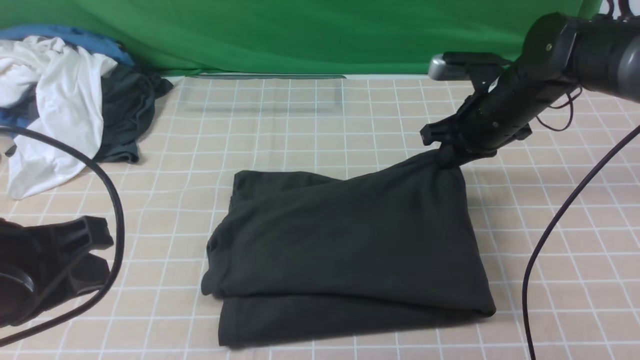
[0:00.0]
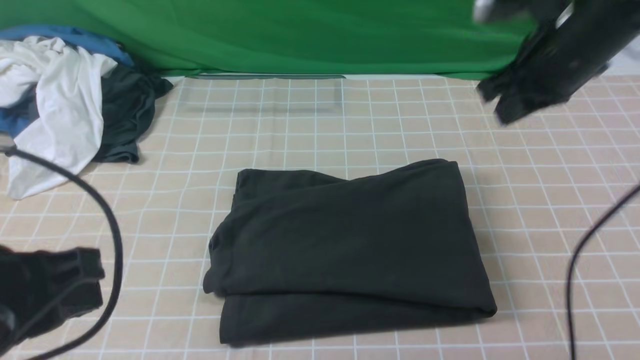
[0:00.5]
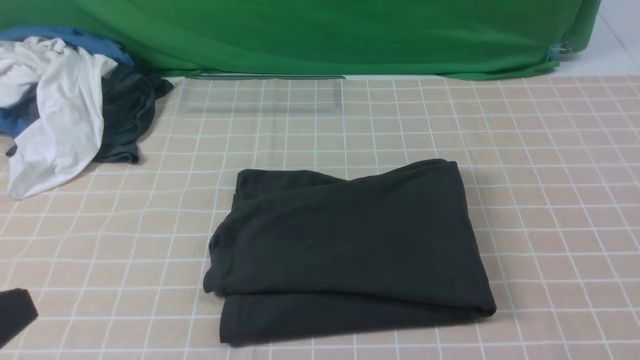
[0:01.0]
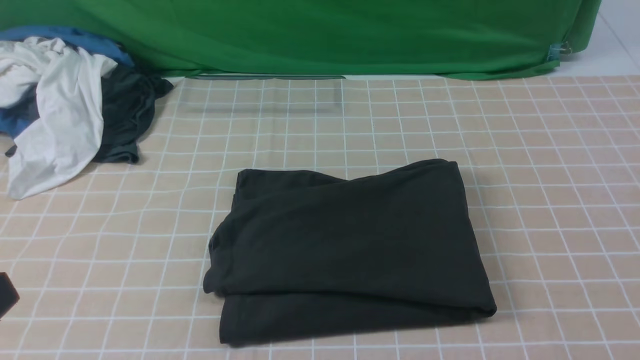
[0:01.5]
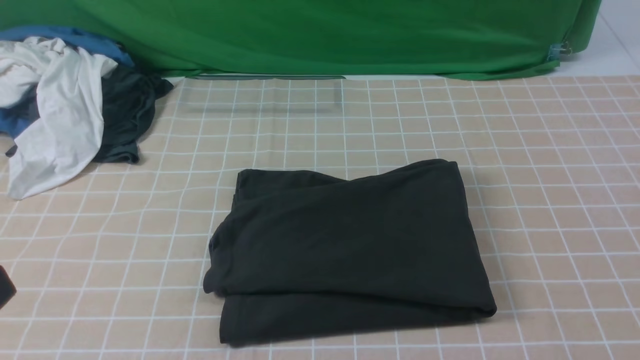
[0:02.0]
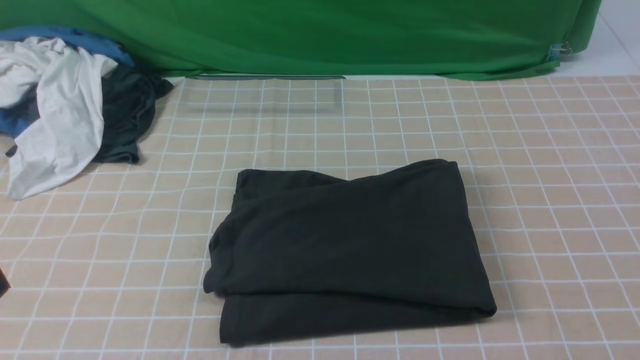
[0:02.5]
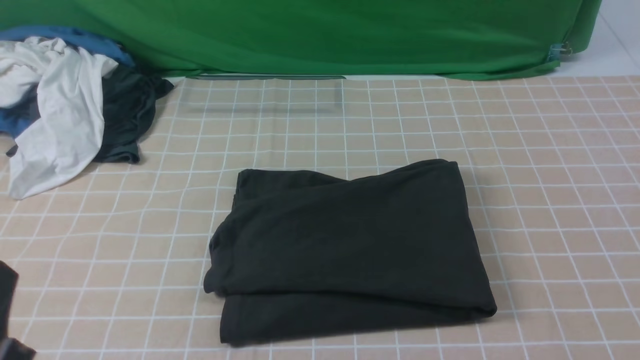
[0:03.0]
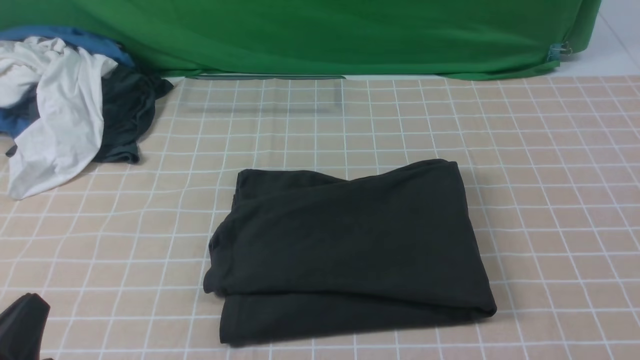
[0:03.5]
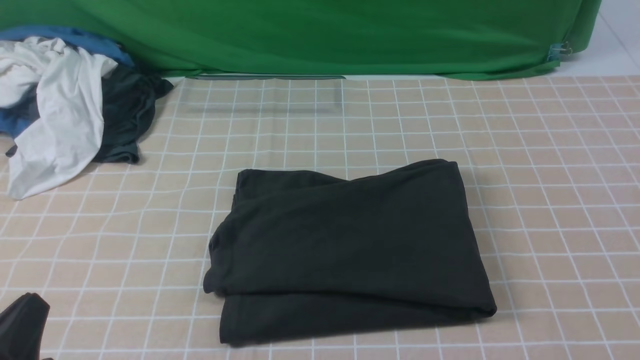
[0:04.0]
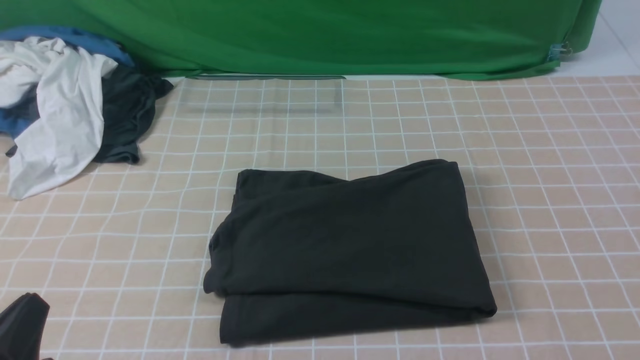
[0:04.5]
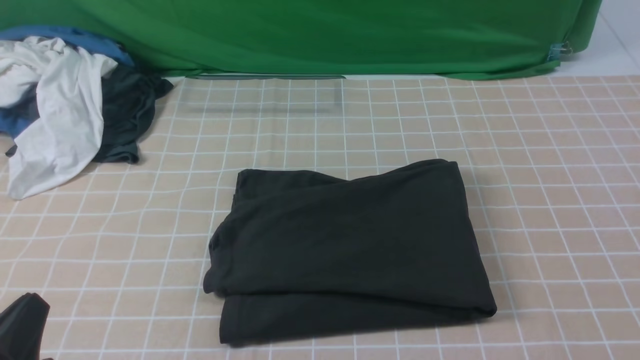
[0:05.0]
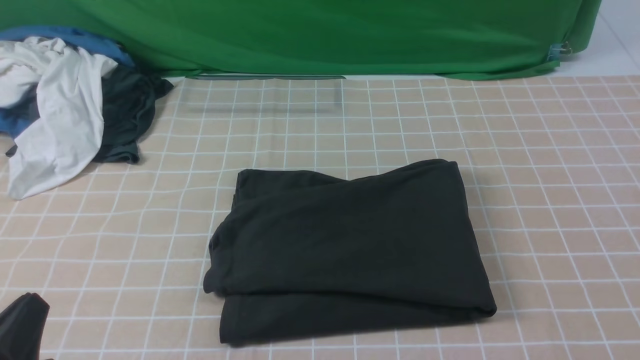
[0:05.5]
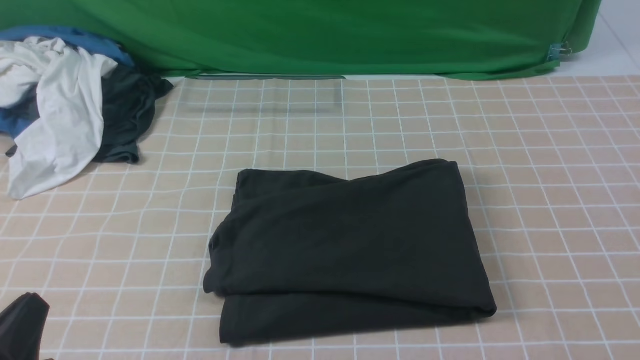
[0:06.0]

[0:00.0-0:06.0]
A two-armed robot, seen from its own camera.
0:00.0 to 0:02.0: The right gripper heads backward and upward, covering some 40 cm, while the left gripper shifts about 10 cm backward.
0:02.0 to 0:04.0: The left gripper heads downward, covering approximately 15 cm.

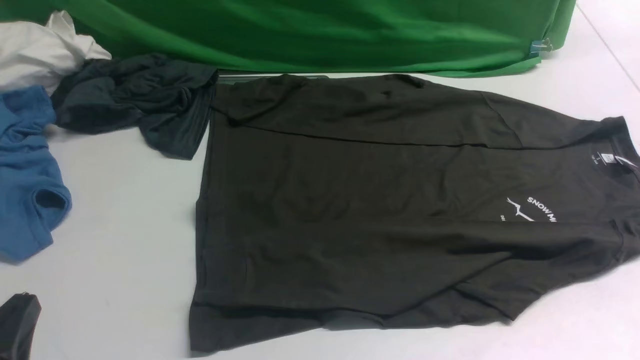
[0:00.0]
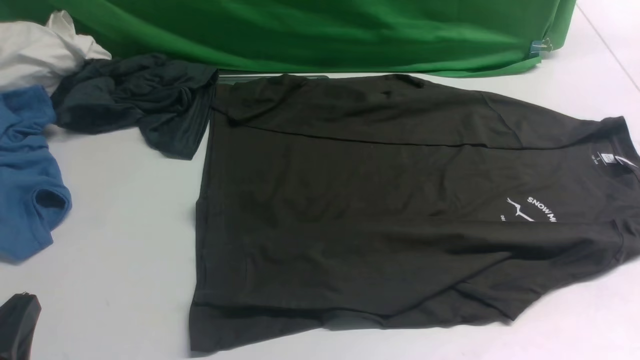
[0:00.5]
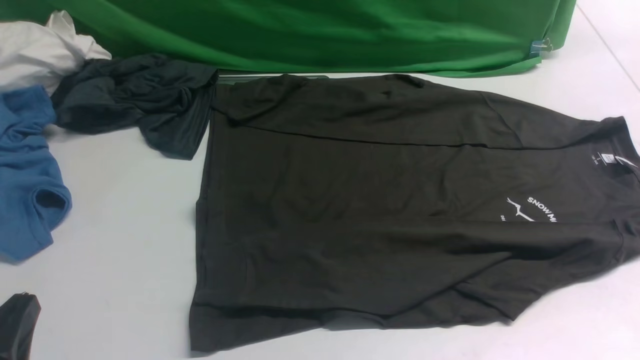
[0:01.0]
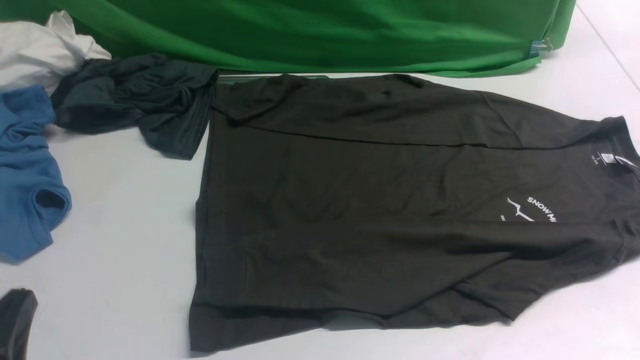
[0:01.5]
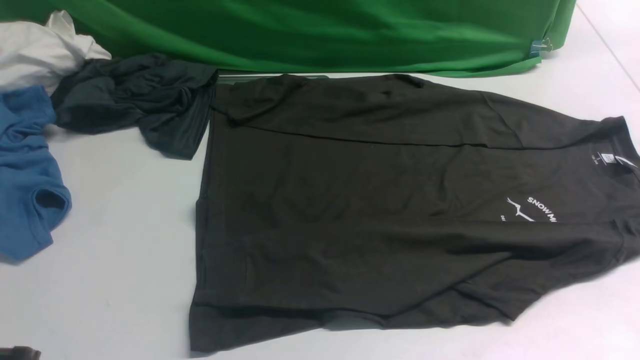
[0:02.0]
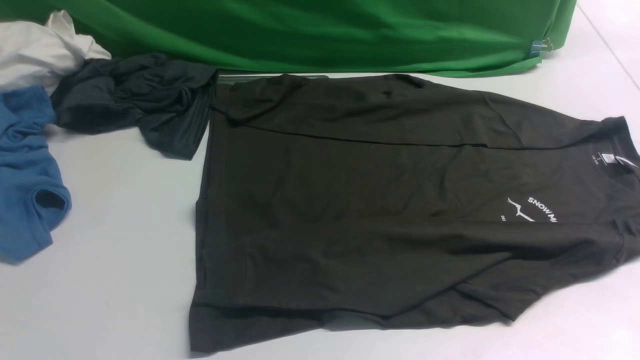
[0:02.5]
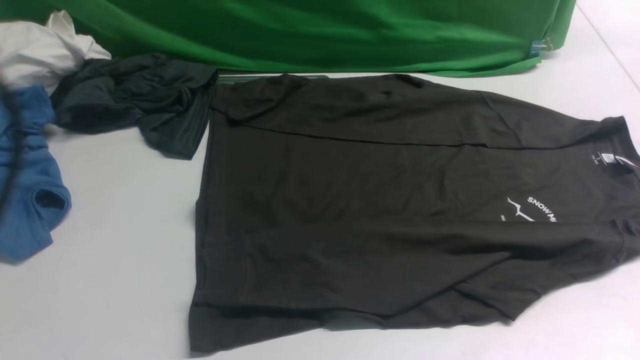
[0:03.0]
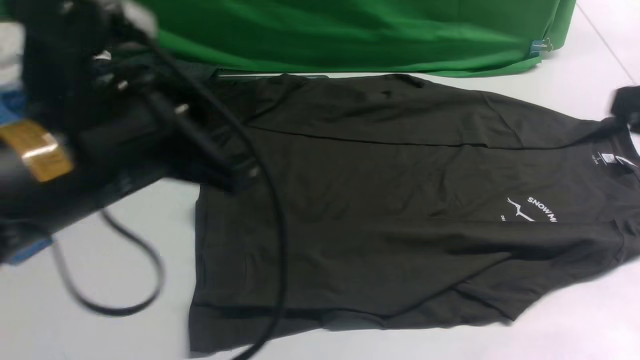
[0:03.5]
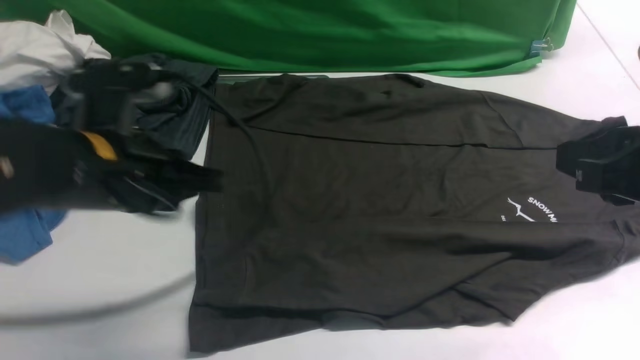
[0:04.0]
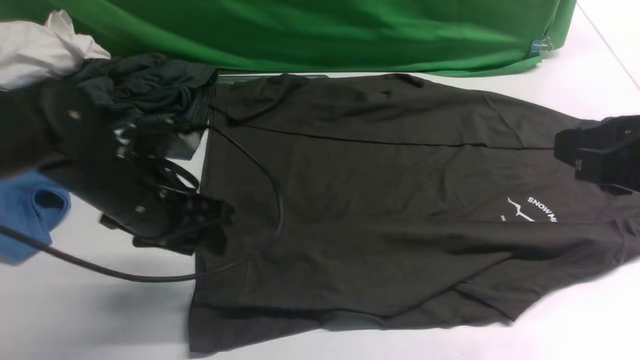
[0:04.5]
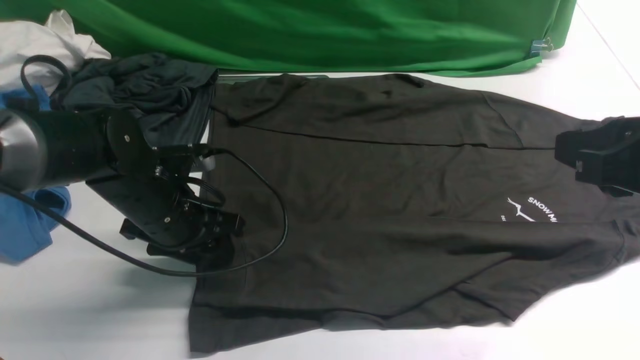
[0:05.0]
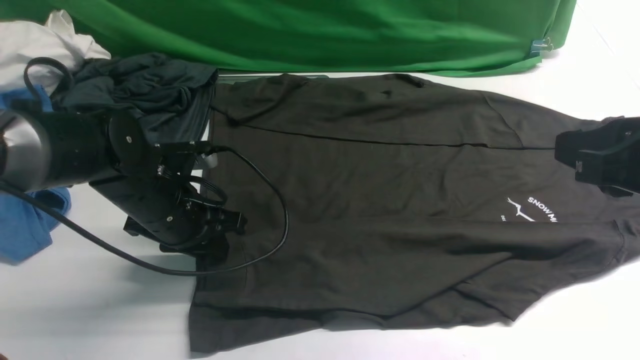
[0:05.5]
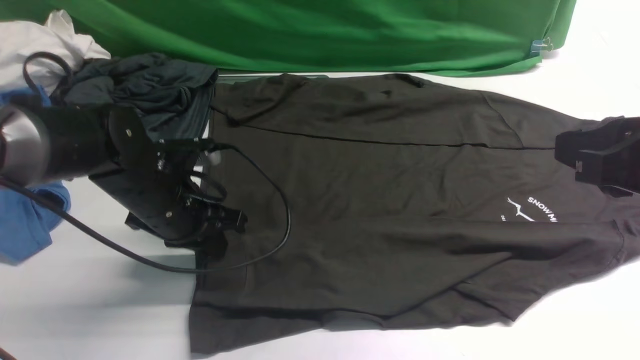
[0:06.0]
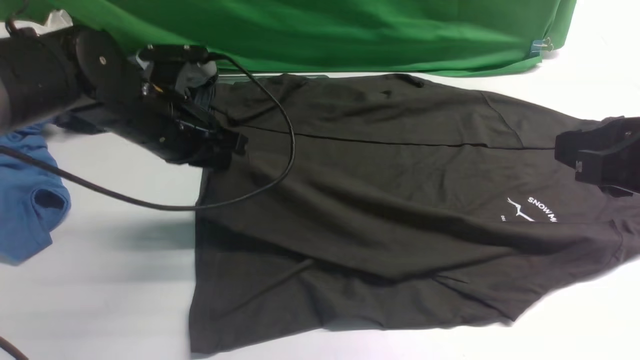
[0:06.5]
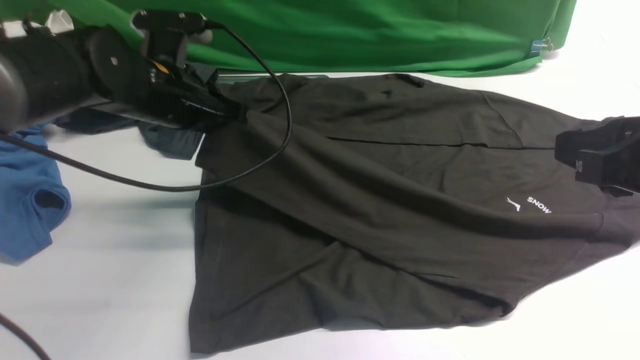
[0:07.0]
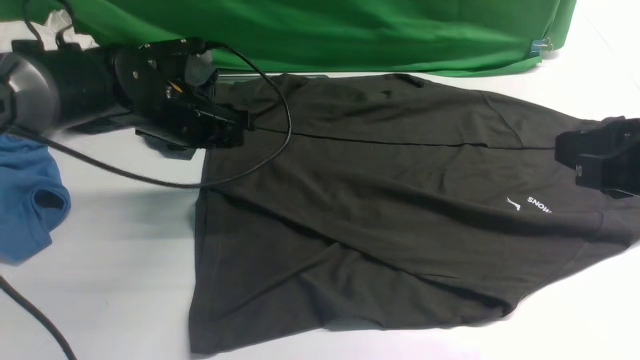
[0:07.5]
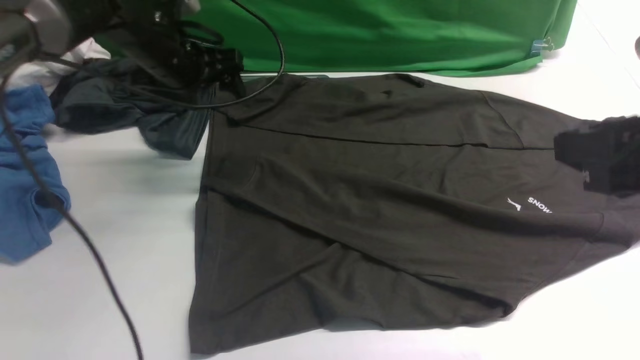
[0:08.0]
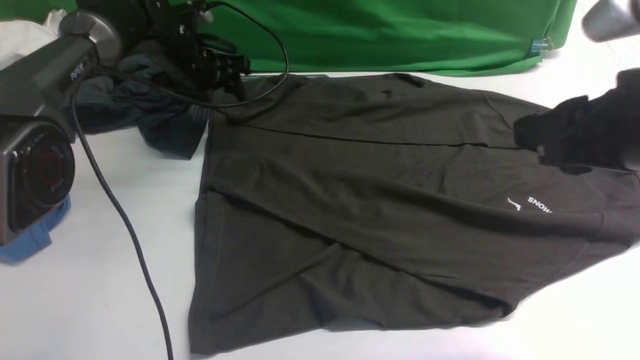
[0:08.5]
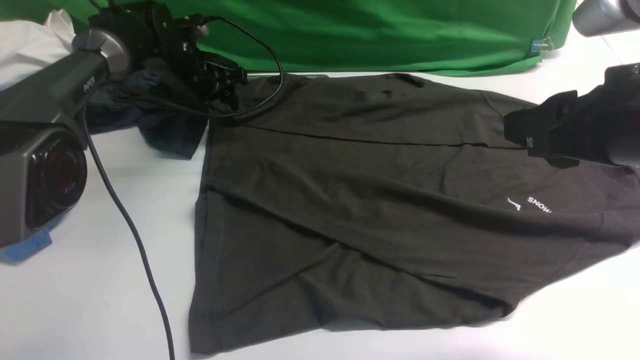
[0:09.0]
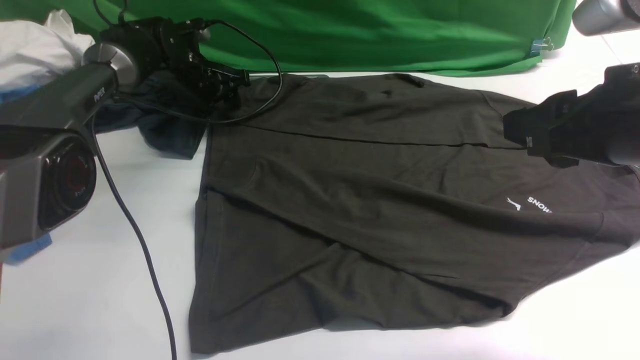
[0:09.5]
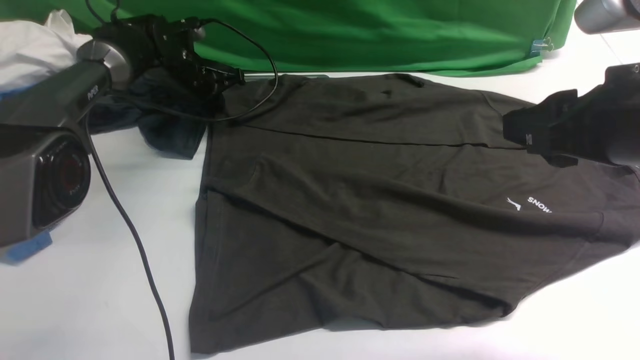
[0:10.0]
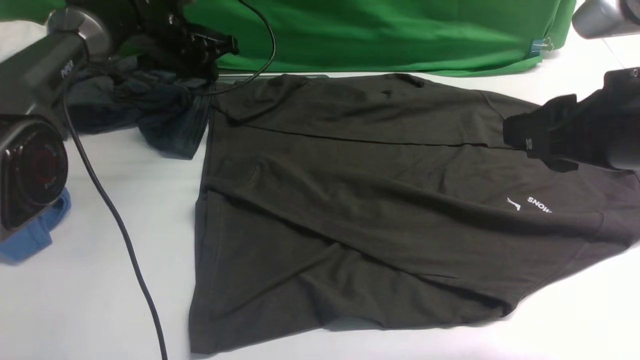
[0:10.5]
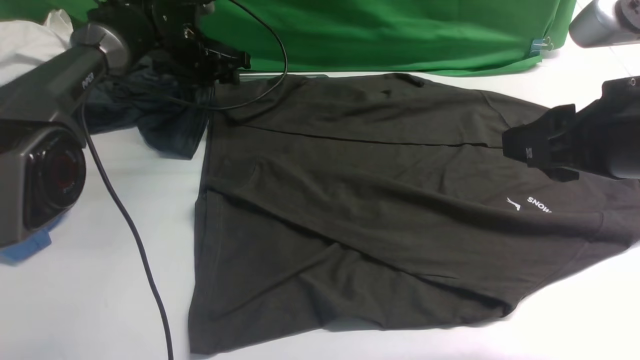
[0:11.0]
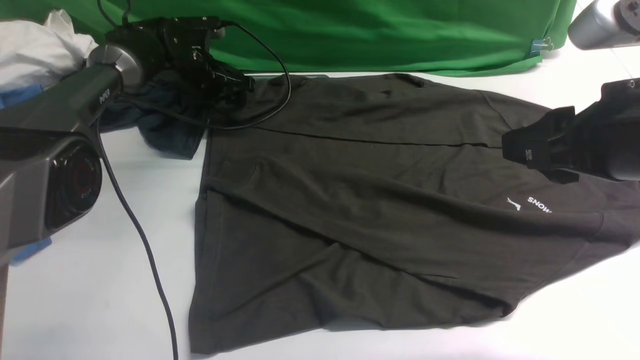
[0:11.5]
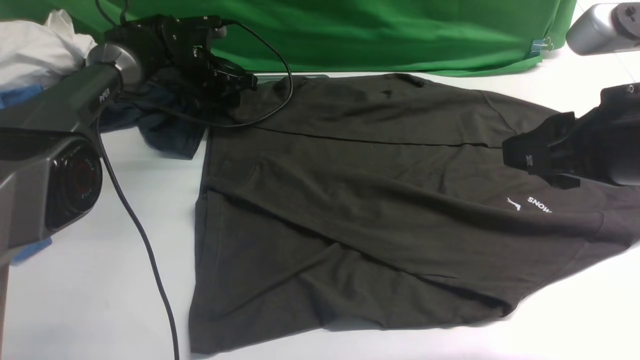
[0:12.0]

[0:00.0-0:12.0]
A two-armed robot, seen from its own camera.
Step, 0:00.0 to 0:06.0: use the left arm to clamp the cuff closest to it.
Step, 0:06.5 to 0:07.5: use the left arm to drag and place the cuff at the centered position on the left edge of the fabric.
0:02.0 to 0:04.0: The left gripper shifts roughly 20 cm forward. Meanwhile the right gripper travels forward, upward and to the left by roughly 20 cm.
0:04.0 to 0:06.0: The left gripper shifts roughly 10 cm downward and forward, and opens and closes again.
0:06.0 to 0:08.0: The left gripper moves forward and upward, roughly 15 cm, and opens.
0:08.0 to 0:10.0: The left gripper moves forward and downward, about 10 cm, and closes its fingers.
0:10.0 to 0:12.0: The left gripper opens, then closes again.

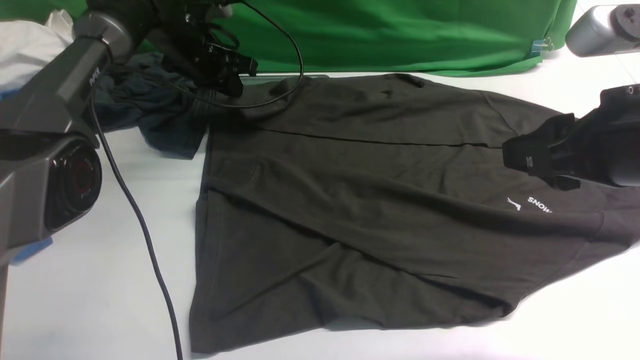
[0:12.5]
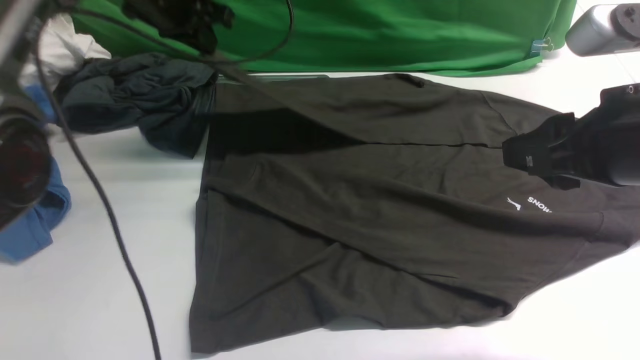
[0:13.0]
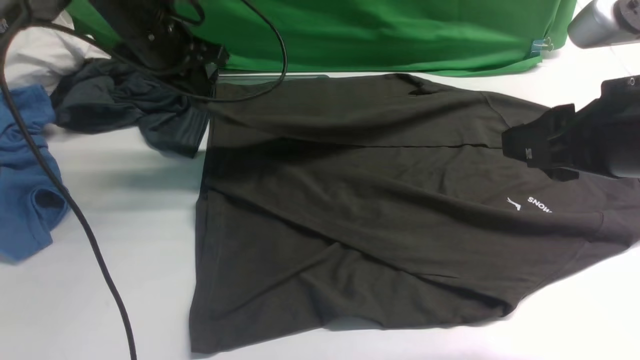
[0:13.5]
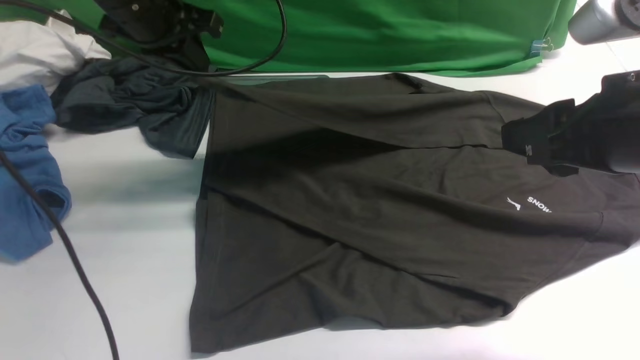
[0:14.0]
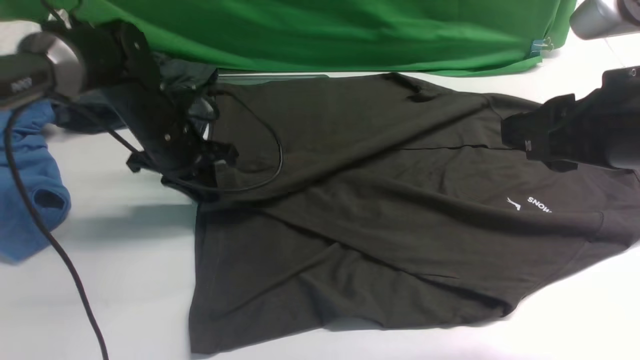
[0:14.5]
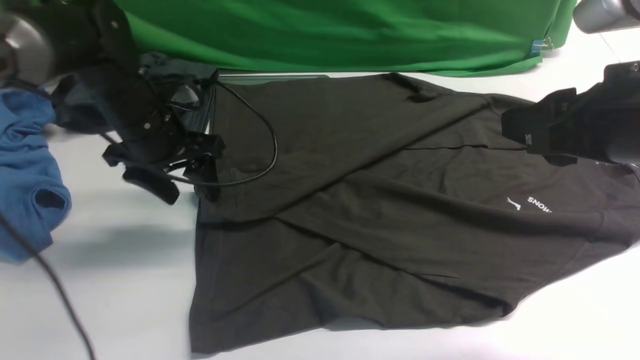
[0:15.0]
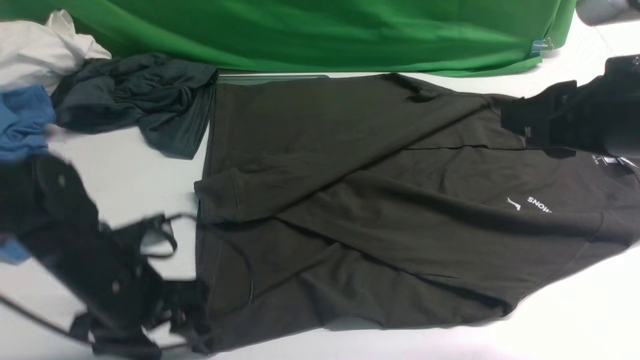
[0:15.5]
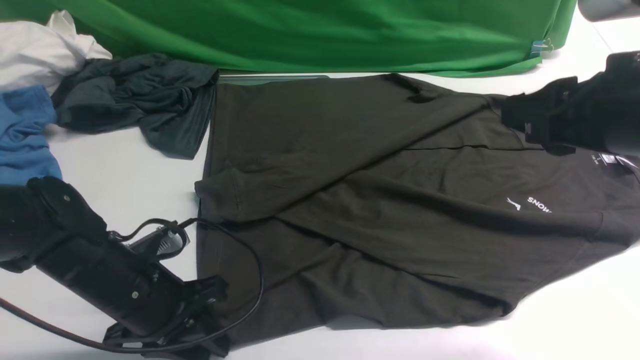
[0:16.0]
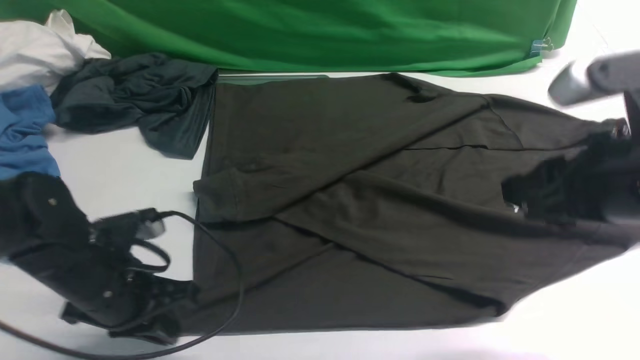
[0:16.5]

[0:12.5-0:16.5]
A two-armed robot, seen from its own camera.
Step, 0:13.0 to 0:15.0: use the left arm to drag and drop the cuff onto the cuff closest to the left arm.
0:12.5 to 0:14.5: The left gripper heads backward, covering about 15 cm.
0:14.5 to 0:16.5: The left gripper moves backward, approximately 20 cm, and opens, then closes again.
